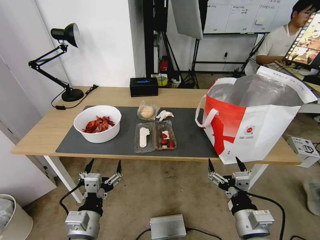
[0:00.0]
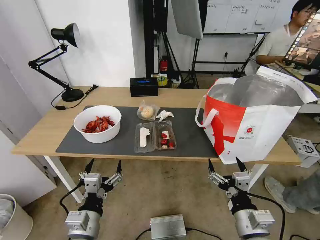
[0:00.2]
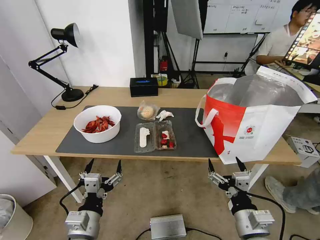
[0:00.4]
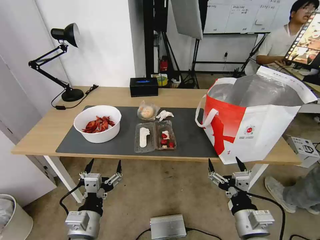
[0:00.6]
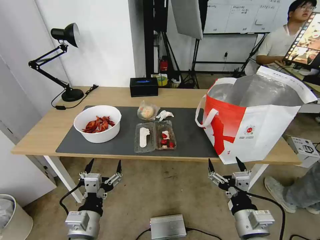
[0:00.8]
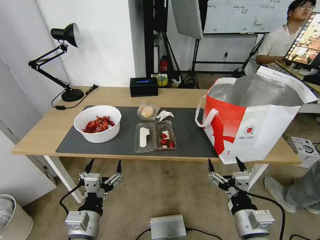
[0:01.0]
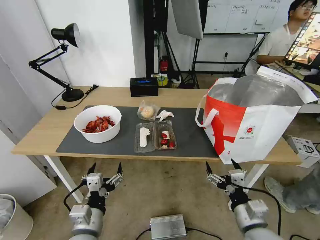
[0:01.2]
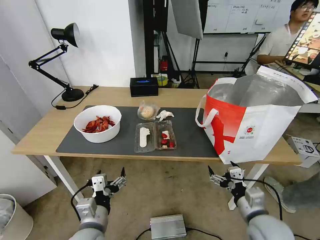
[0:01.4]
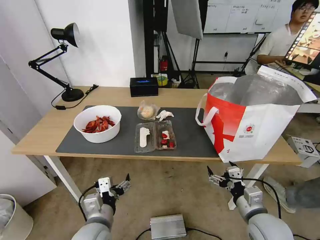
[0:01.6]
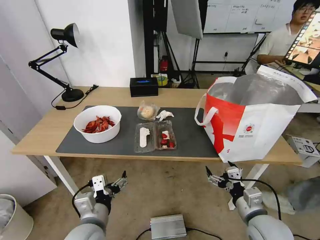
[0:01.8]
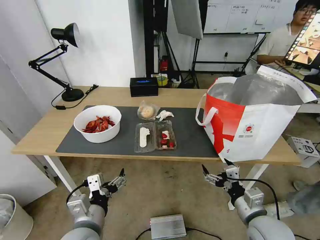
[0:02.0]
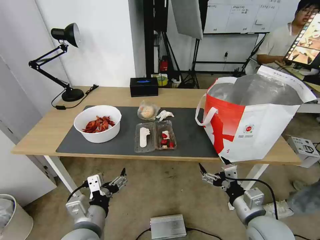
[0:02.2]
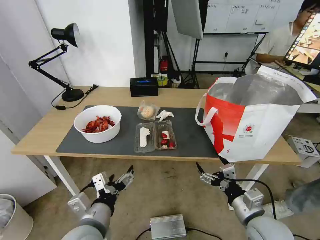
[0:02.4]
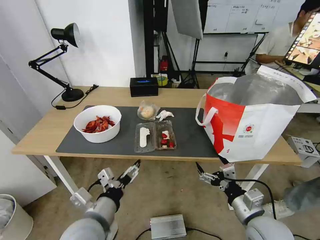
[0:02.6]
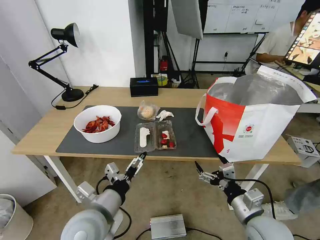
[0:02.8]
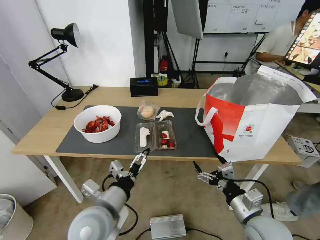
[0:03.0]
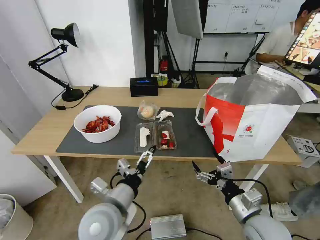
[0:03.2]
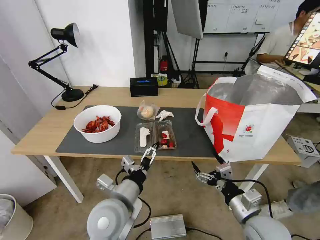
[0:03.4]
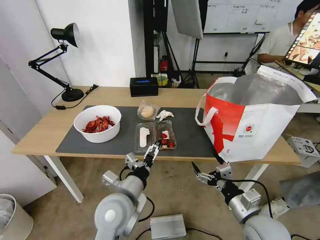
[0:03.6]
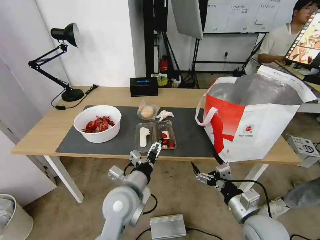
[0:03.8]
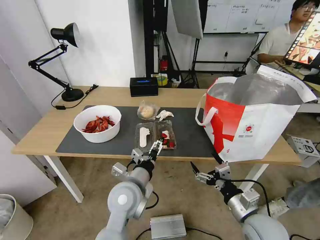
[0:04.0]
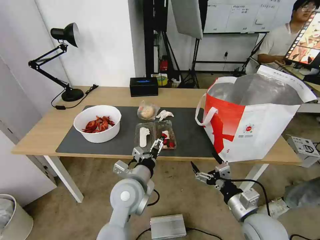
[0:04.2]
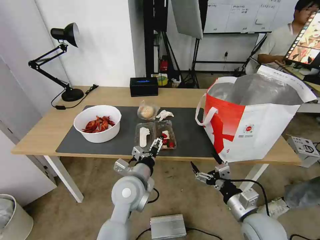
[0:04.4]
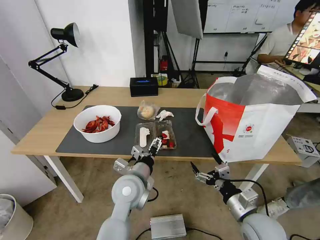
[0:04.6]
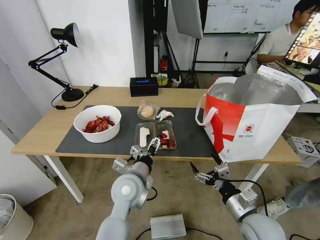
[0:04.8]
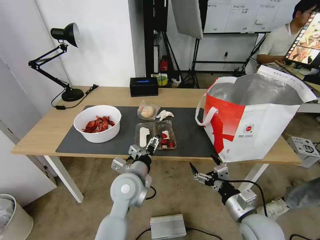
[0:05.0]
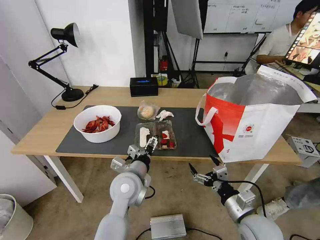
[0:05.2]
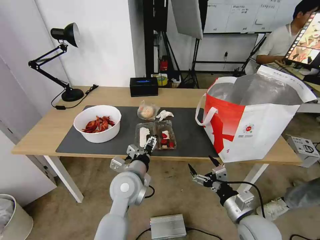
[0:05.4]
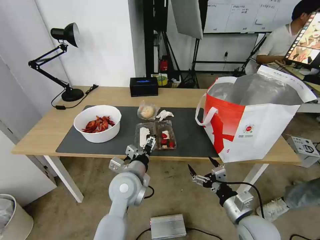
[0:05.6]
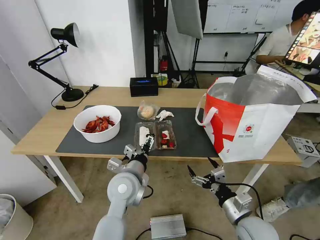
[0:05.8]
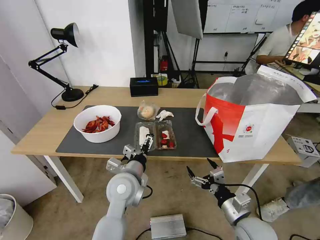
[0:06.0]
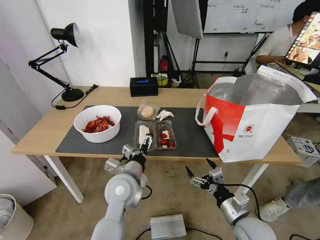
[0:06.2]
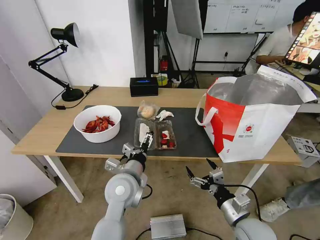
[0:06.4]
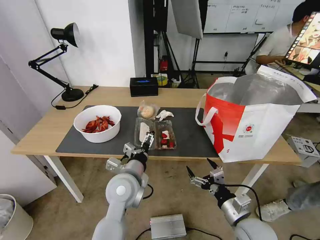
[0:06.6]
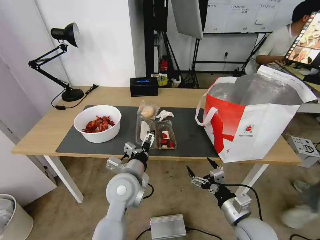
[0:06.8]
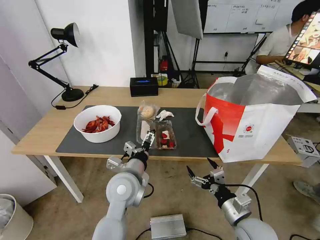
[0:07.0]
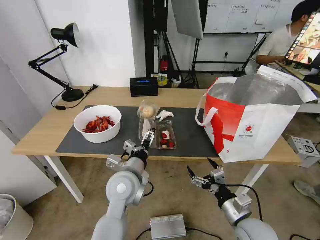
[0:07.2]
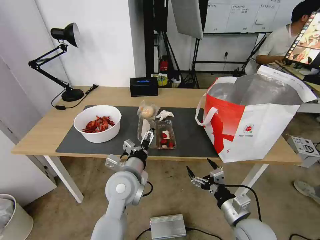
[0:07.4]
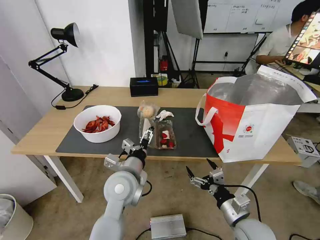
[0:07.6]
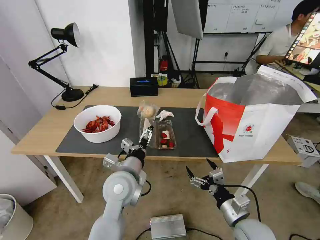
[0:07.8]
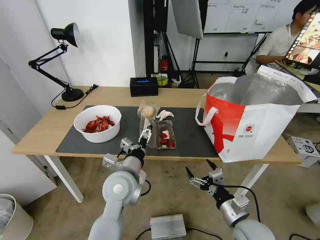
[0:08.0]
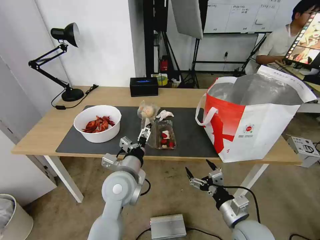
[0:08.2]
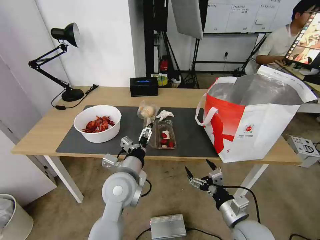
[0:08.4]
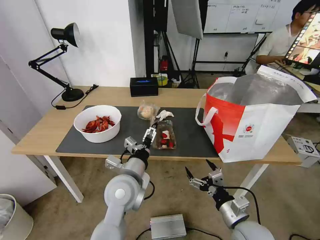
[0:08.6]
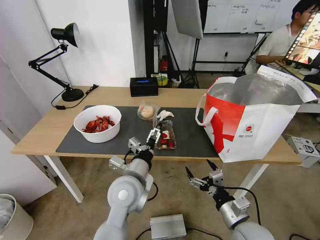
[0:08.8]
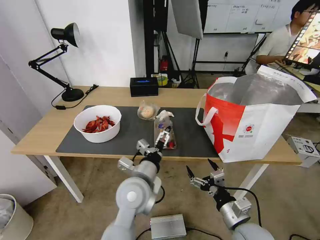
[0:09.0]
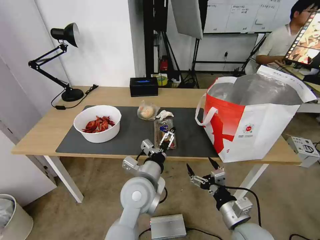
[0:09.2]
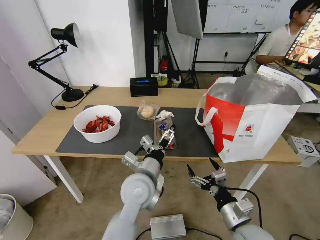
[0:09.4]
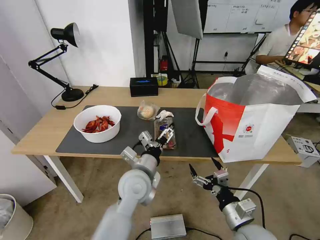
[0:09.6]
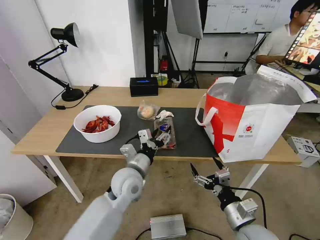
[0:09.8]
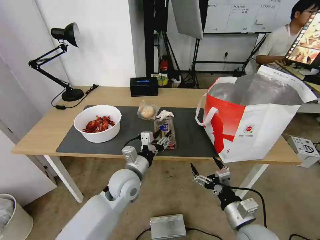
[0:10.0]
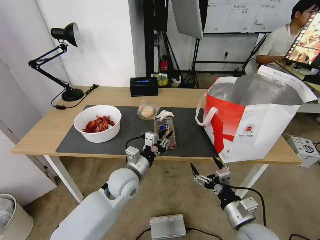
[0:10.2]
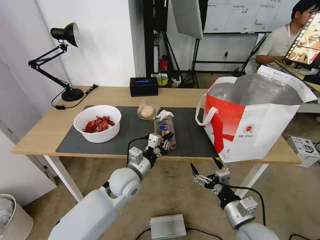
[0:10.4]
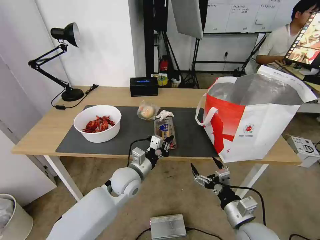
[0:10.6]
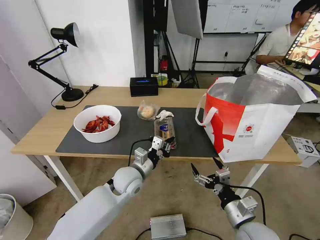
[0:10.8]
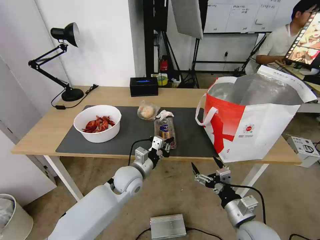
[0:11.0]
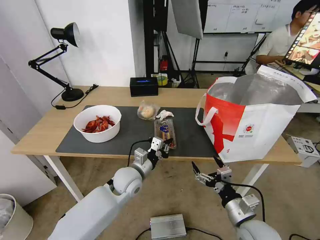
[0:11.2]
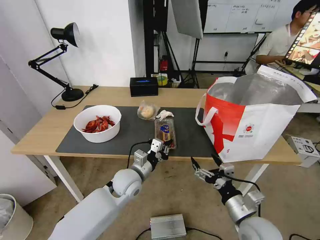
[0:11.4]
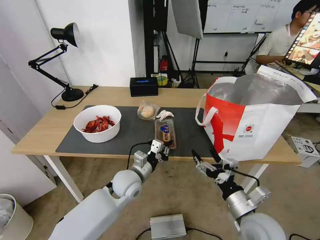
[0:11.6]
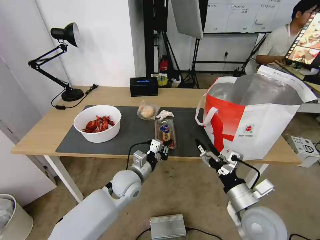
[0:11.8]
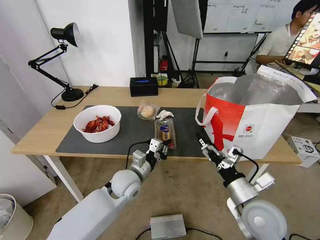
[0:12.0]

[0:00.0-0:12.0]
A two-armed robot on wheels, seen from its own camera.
Task of the whole recording: Pick up the trash from the table and place it into the takeout bag.
0:01.6 to 0:03.0: The left gripper is displaced upward by approximately 10 cm.
0:03.0 to 0:04.4: The left gripper goes about 10 cm forward and to the right.
0:04.4 to 0:09.0: The grippers make only small movements.
0:09.0 to 0:10.4: The left gripper goes approximately 10 cm forward and downward, and closes its fingers.
0:10.4 to 0:12.0: The right gripper goes approximately 5 cm upward.

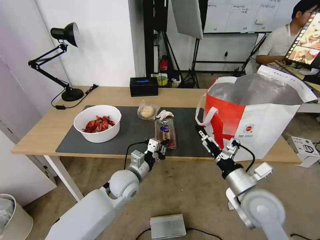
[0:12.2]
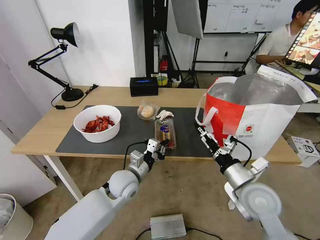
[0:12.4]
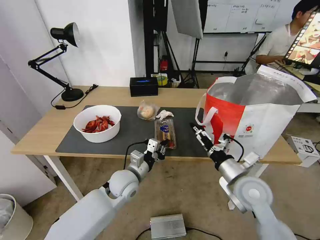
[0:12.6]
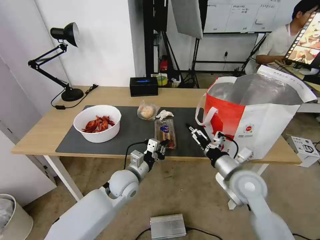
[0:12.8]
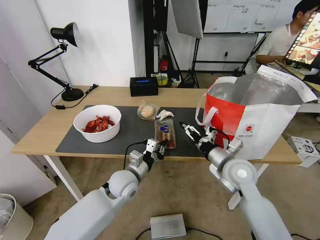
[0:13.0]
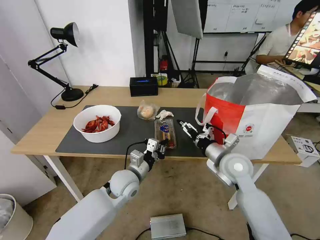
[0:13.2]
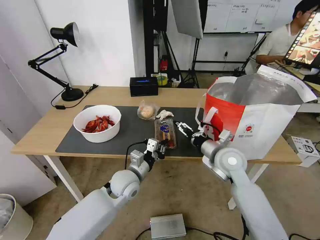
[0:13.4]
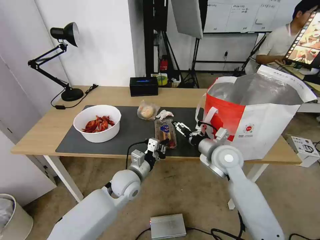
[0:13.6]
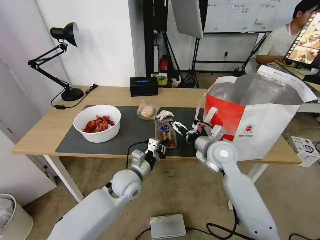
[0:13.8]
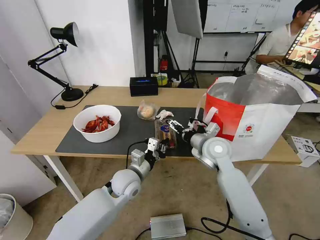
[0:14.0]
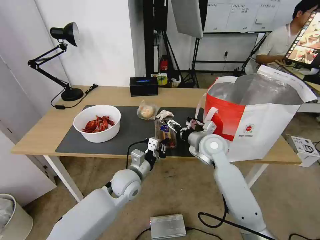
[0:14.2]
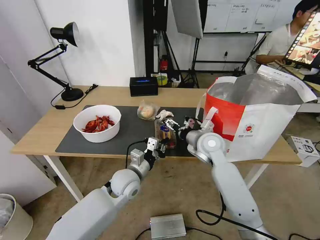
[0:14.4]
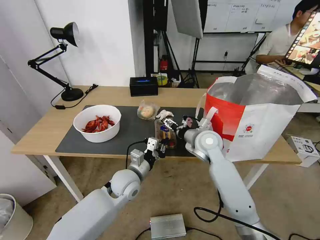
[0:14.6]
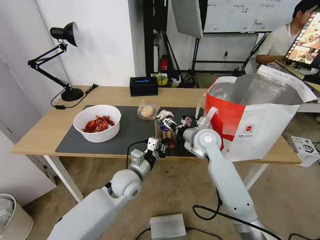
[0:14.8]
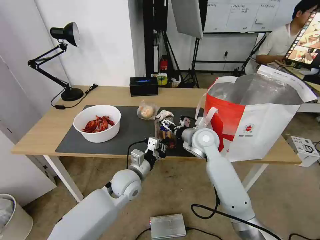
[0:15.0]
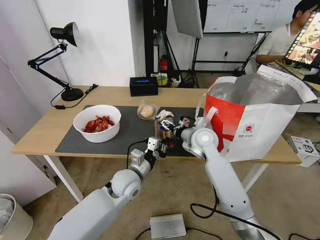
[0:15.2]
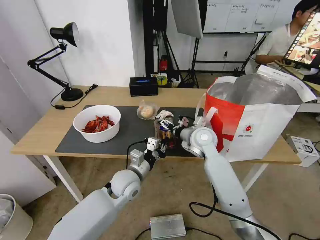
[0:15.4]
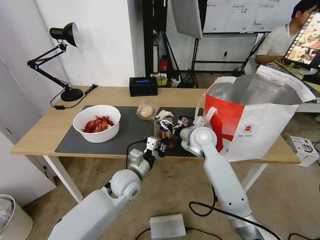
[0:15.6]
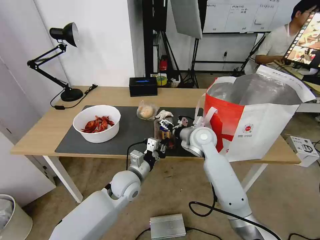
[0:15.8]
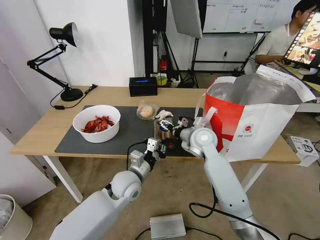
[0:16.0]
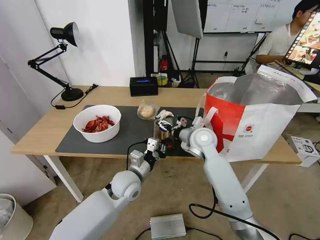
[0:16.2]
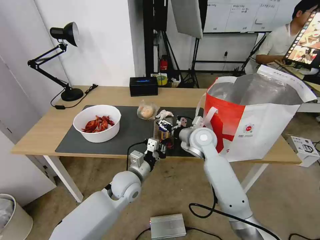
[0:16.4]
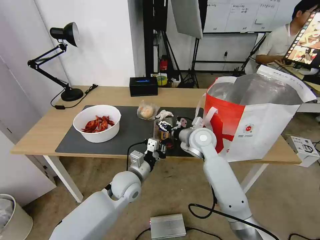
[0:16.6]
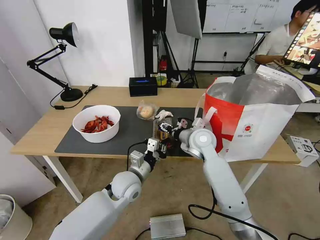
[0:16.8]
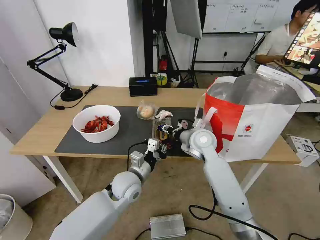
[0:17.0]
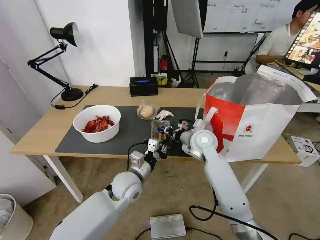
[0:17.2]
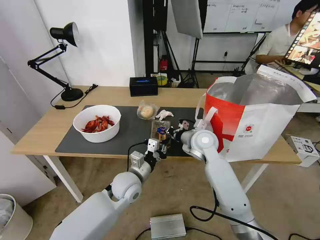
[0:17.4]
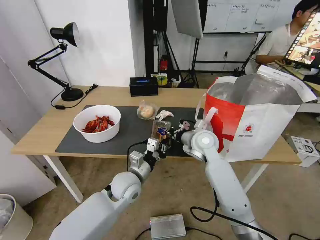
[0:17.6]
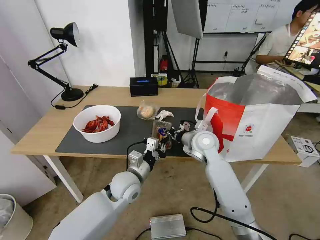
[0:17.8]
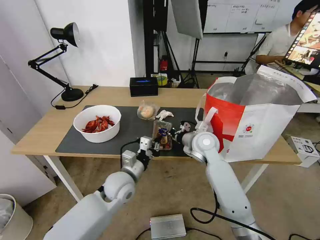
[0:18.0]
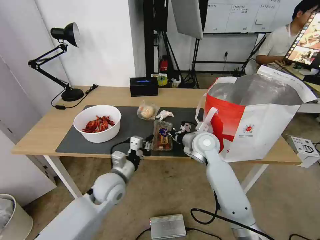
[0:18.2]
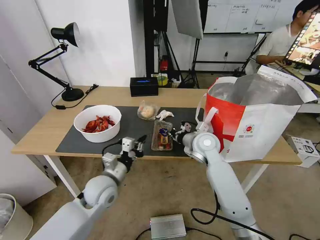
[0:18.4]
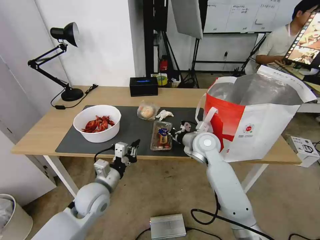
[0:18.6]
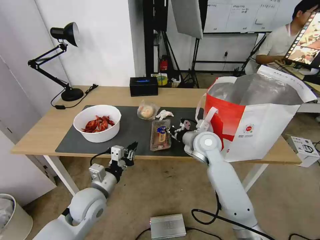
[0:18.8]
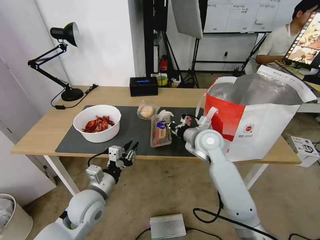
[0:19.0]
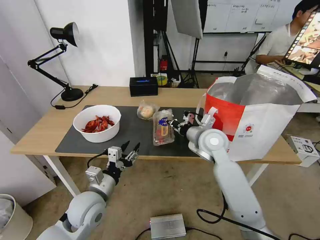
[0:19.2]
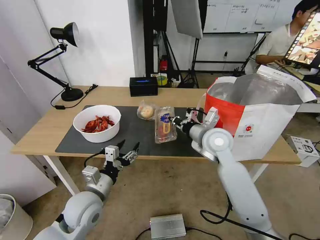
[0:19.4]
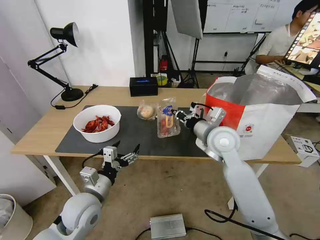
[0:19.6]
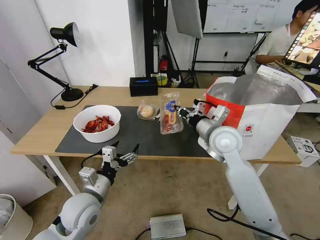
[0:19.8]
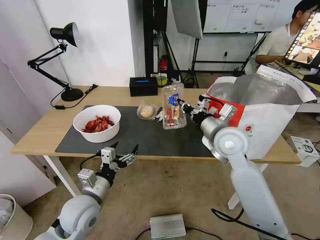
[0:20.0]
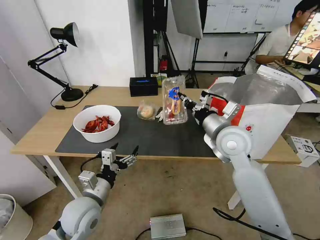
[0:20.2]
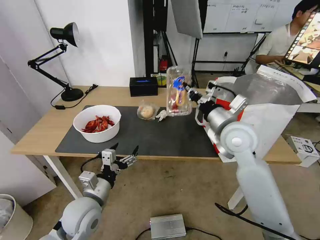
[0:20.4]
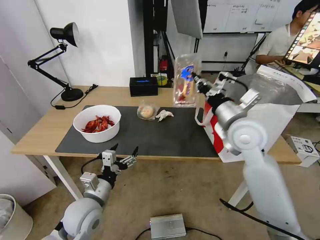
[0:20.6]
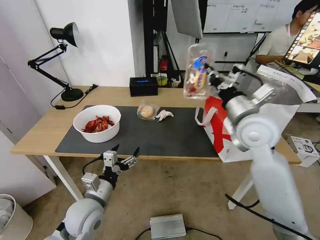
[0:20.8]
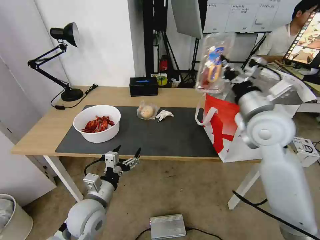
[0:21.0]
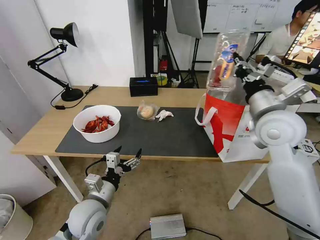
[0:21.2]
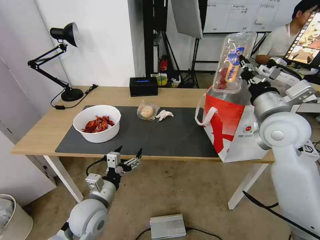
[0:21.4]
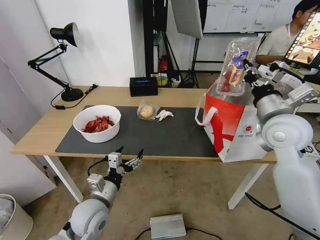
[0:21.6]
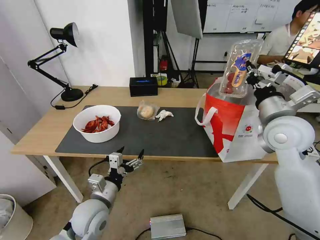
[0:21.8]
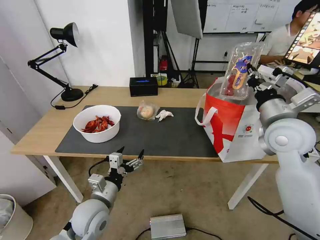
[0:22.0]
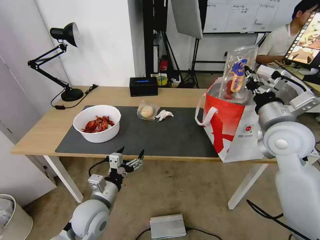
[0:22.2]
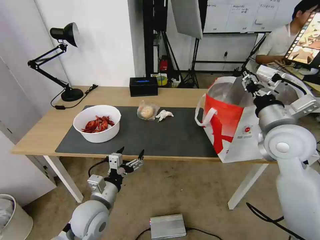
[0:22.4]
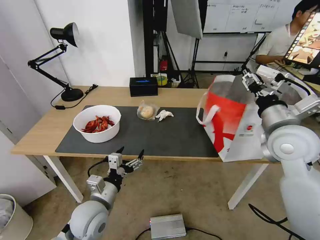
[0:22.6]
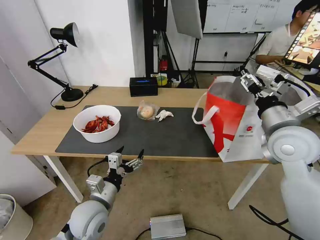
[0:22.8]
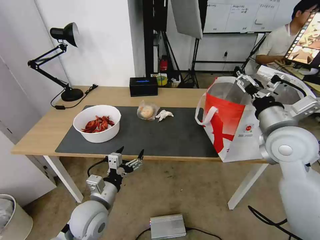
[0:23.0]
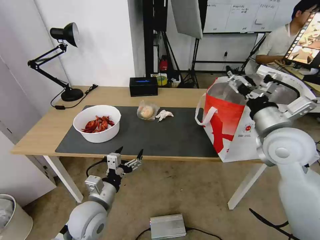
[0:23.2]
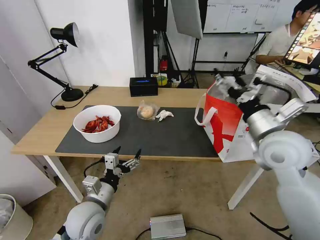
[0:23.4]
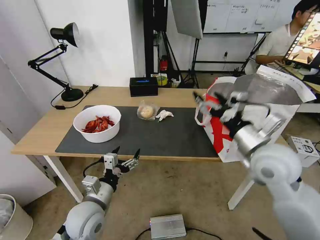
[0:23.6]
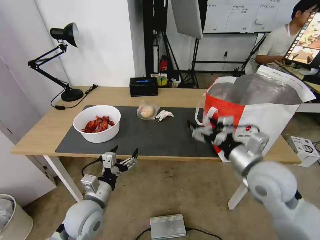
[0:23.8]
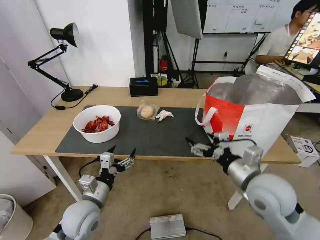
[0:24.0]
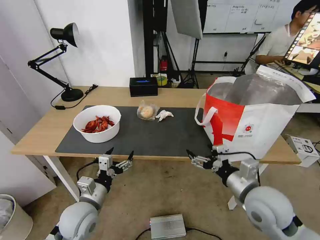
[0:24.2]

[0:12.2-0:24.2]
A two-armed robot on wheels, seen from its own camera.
Task of the whole recording: Pick up the trash from the table and place it into the takeout bag.
0:12.2 to 0:13.8: The right gripper goes about 15 cm forward.
0:13.8 to 0:15.2: The right gripper shifts approximately 5 cm forward.
0:15.2 to 0:16.6: The two grippers keep their place.
0:16.6 to 0:18.2: The right gripper closes its fingers, while the left gripper moves to the left, some 5 cm.
0:18.2 to 0:19.8: The left gripper moves backward and to the left, roughly 10 cm, and opens, while the right gripper moves upward, some 10 cm.
0:19.8 to 0:21.2: The right gripper moves to the right and upward, some 10 cm.
0:21.2 to 0:22.6: The right gripper opens its fingers.
0:22.6 to 0:24.2: The right gripper moves downward, backward and to the left, roughly 15 cm, and opens.
